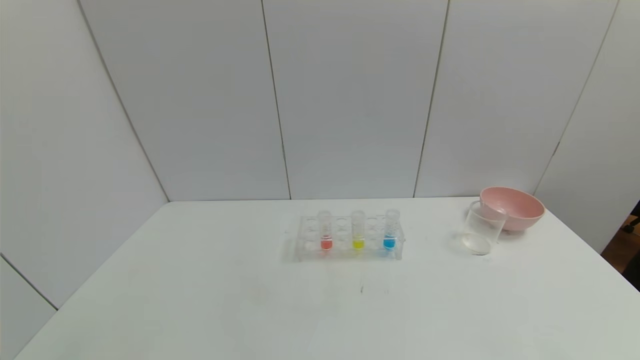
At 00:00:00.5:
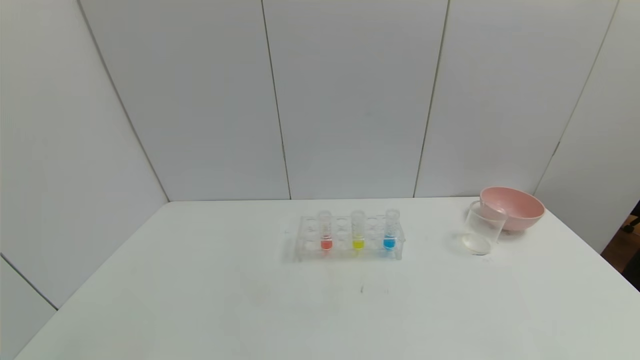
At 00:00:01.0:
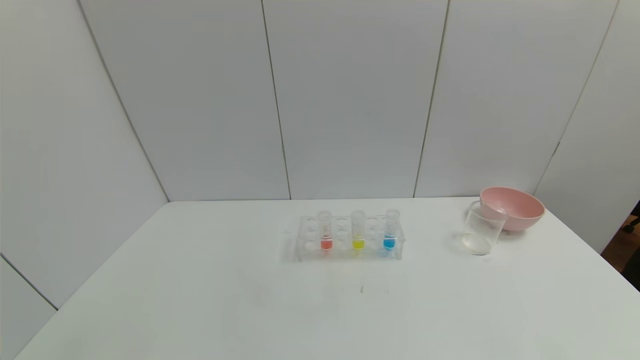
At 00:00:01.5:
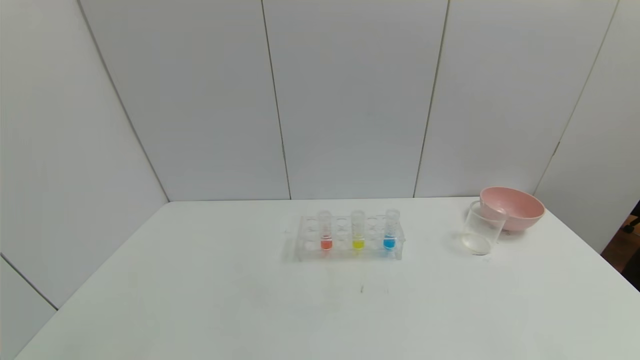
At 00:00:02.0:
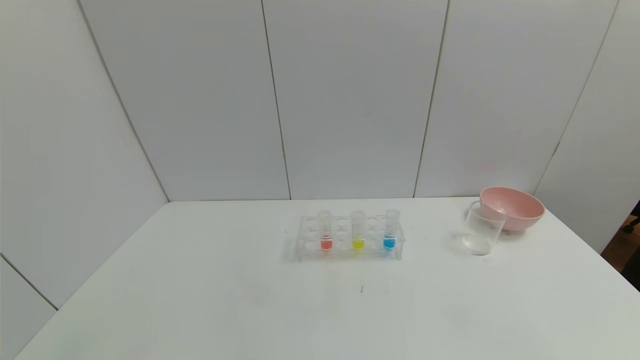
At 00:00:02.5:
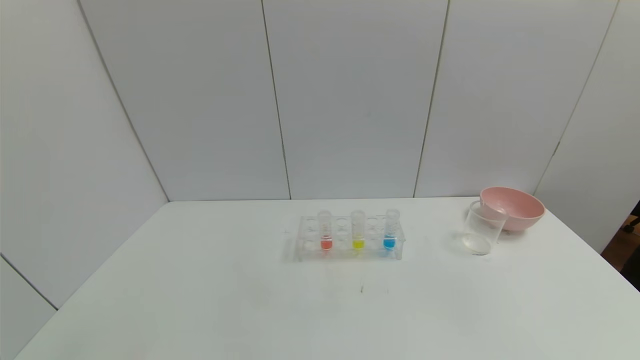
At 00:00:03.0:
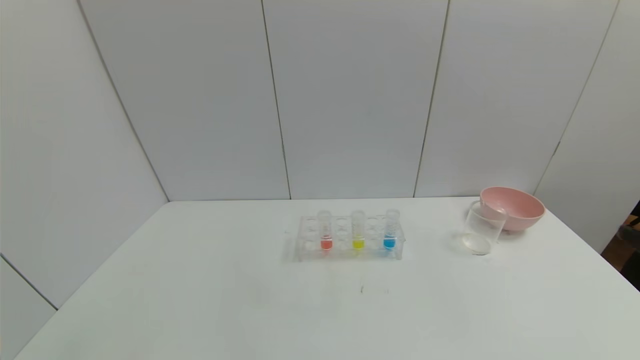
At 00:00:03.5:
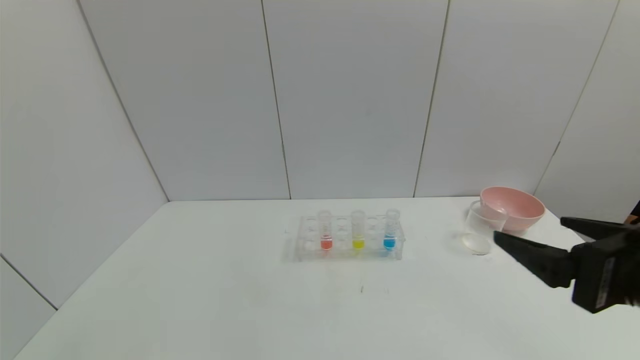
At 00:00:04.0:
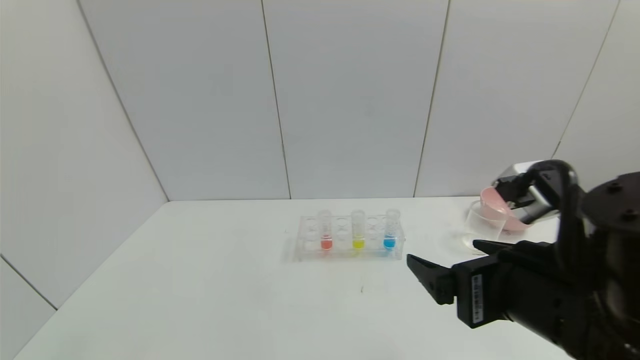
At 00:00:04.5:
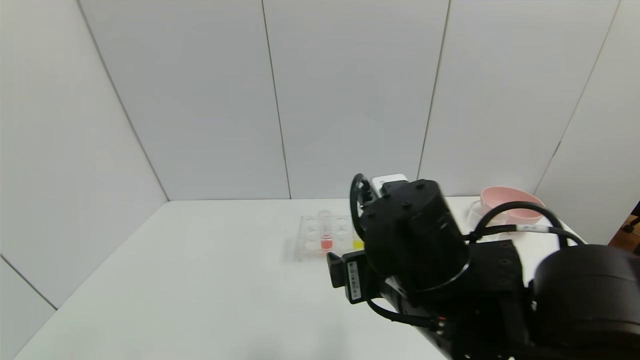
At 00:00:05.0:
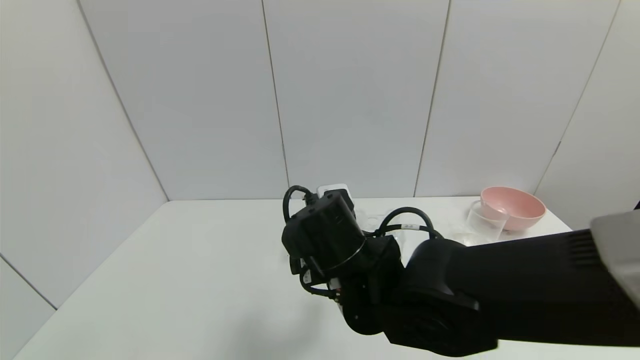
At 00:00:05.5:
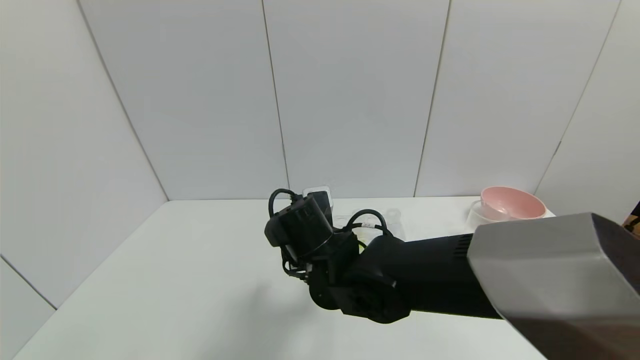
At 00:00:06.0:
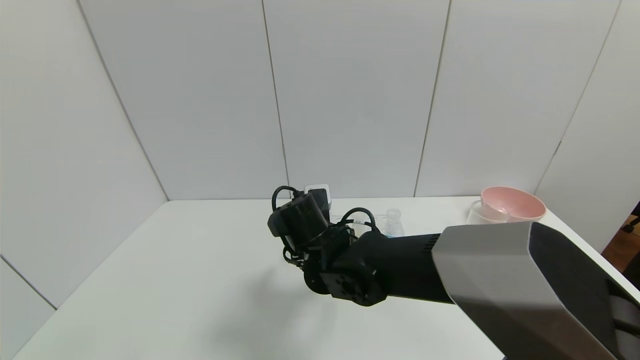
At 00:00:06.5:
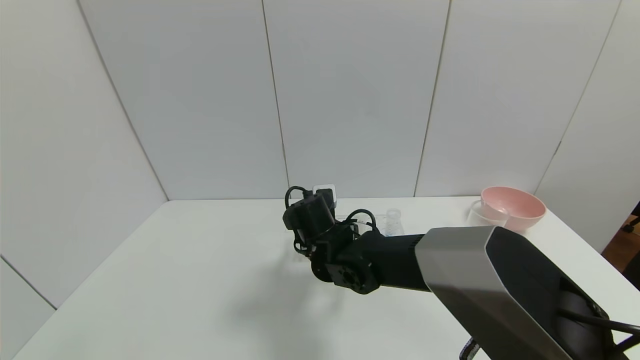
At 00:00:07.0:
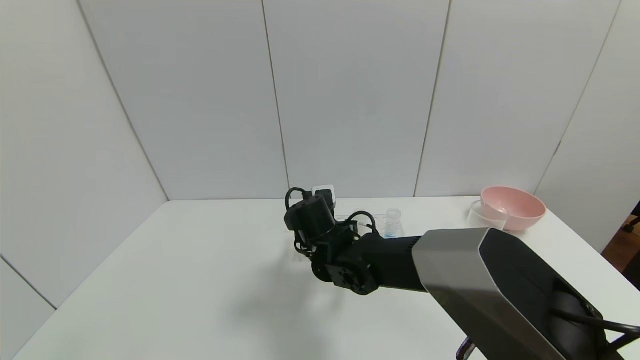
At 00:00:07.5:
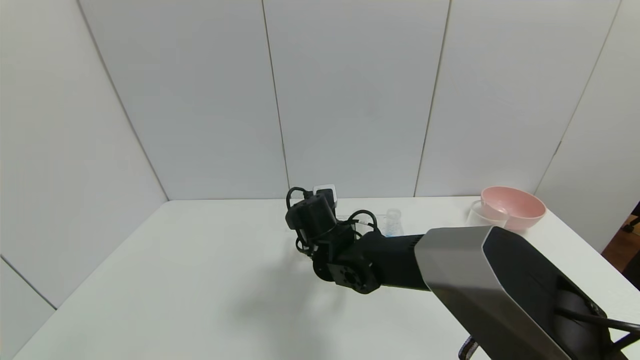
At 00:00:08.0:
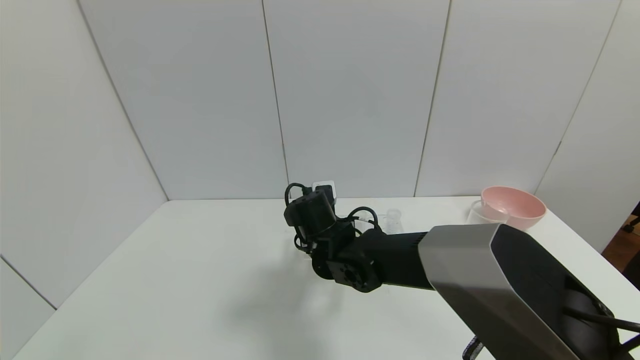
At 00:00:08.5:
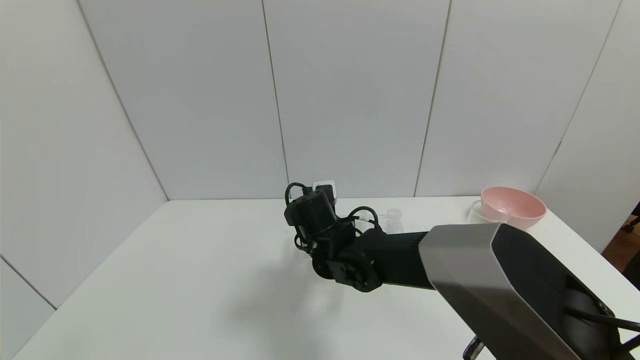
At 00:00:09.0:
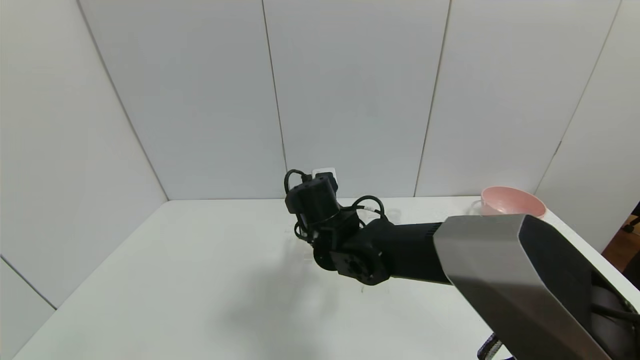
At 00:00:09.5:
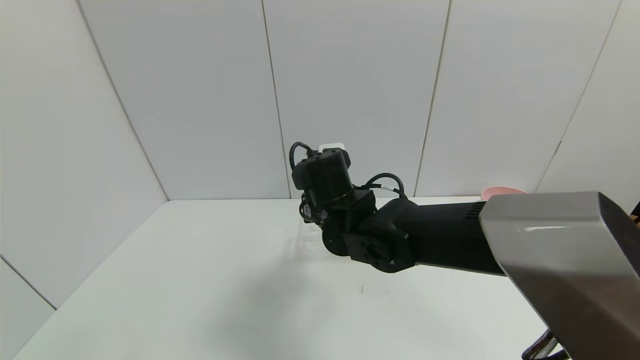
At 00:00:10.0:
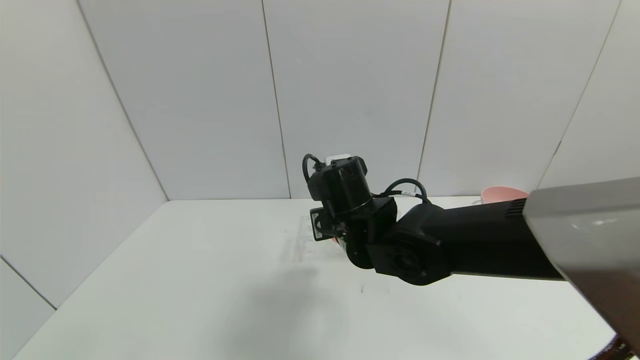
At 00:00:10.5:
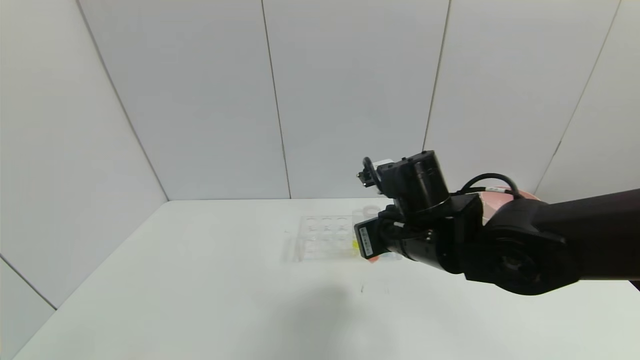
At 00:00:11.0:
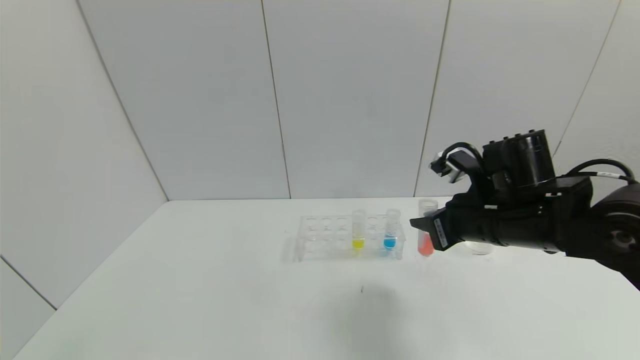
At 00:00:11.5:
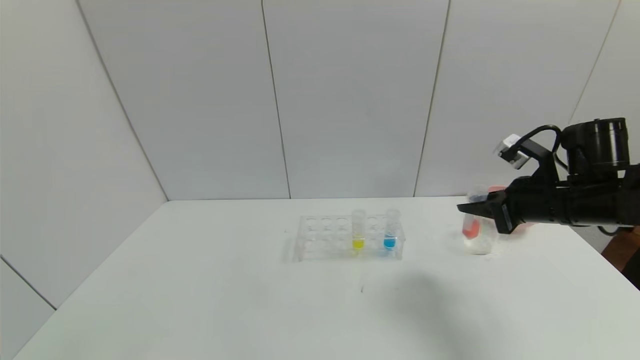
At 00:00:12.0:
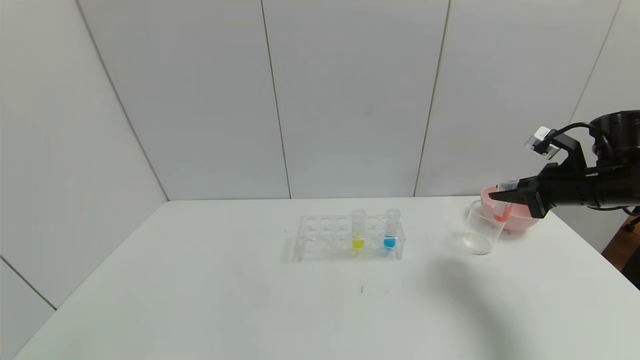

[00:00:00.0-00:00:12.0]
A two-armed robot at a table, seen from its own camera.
Task of the whole recording: pick up the test tube with yellow pigment and the test tube with red pigment by grippers and pour them into the beaker.
Step, 00:00:00.0 to 00:00:07.5: Grasp the red reagent with the right gripper.
00:00:02.0 to 00:00:04.0: The right gripper heads to the left, forward and upward, covering about 30 cm.
00:00:04.0 to 00:00:06.0: The right gripper shifts approximately 30 cm to the left, forward and downward.
00:00:06.0 to 00:00:08.0: The right gripper closes up.
00:00:08.0 to 00:00:10.0: The right gripper goes about 5 cm upward.
00:00:10.0 to 00:00:12.0: The right gripper goes approximately 35 cm to the right.

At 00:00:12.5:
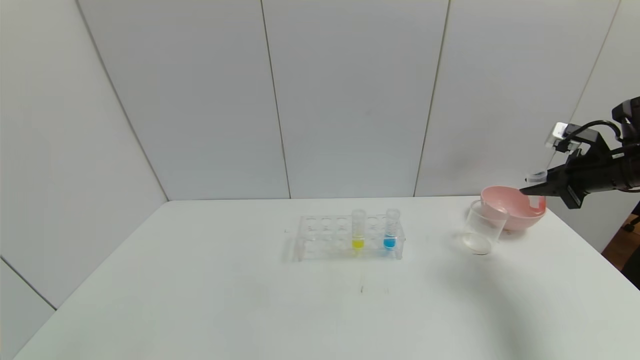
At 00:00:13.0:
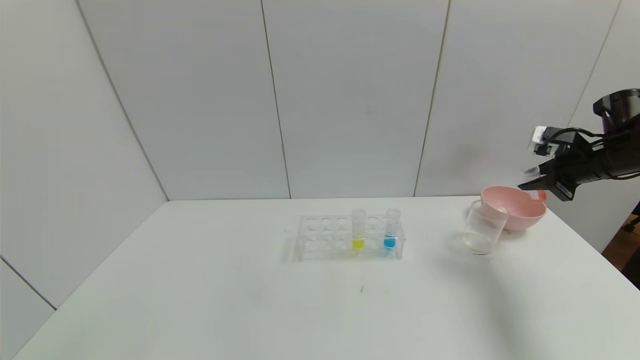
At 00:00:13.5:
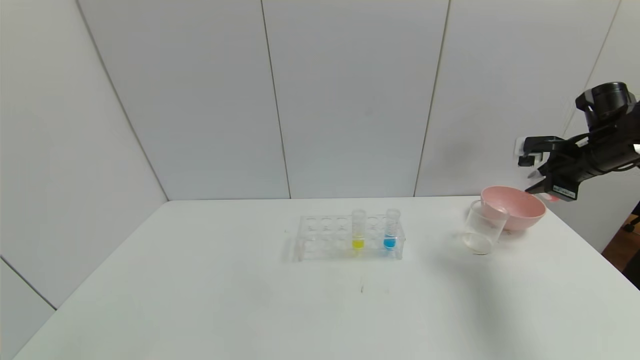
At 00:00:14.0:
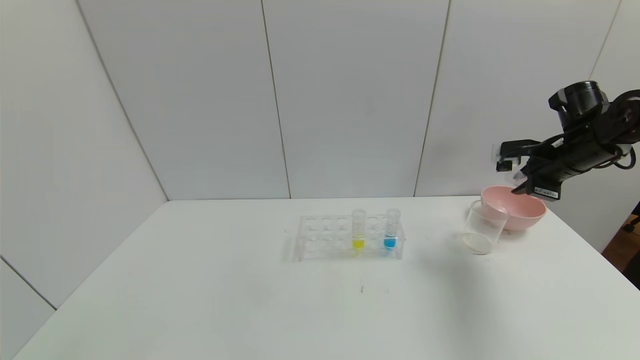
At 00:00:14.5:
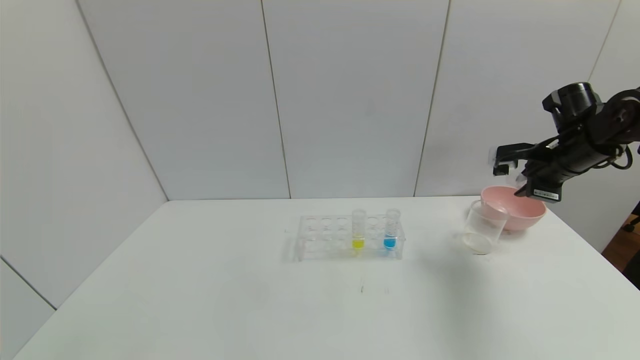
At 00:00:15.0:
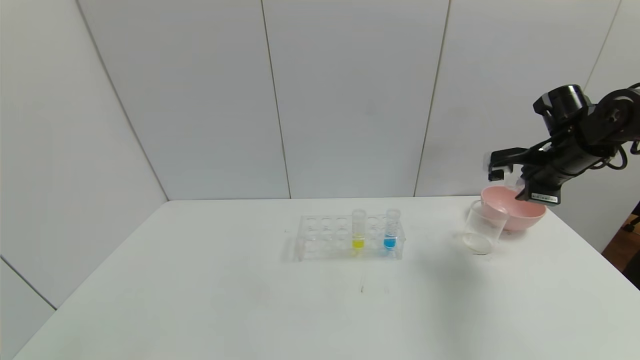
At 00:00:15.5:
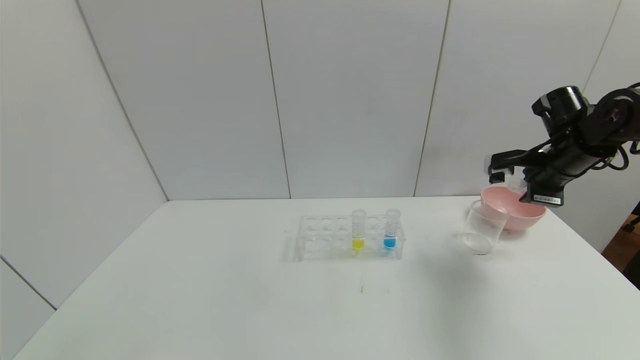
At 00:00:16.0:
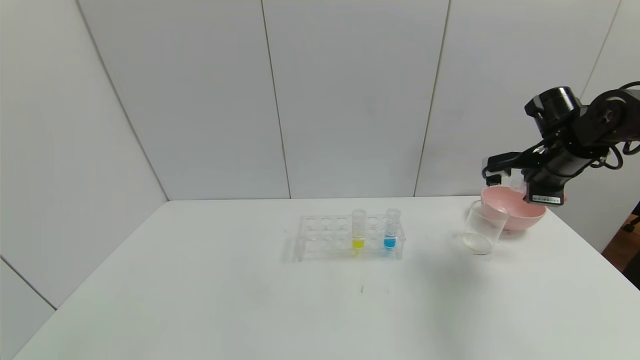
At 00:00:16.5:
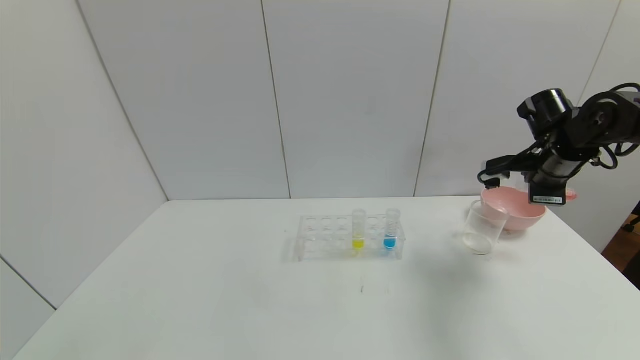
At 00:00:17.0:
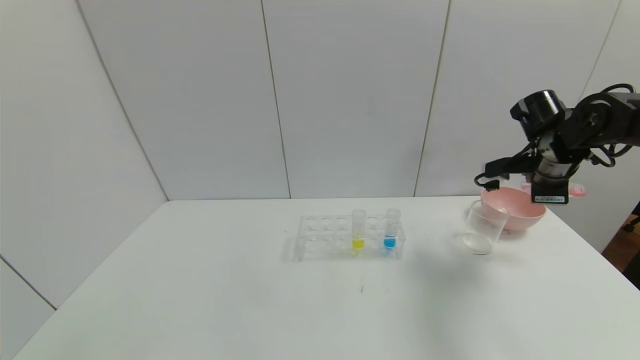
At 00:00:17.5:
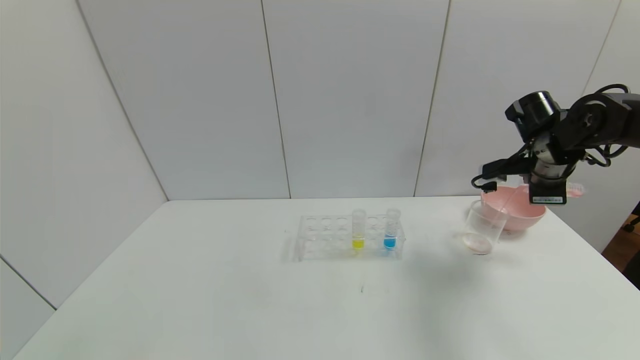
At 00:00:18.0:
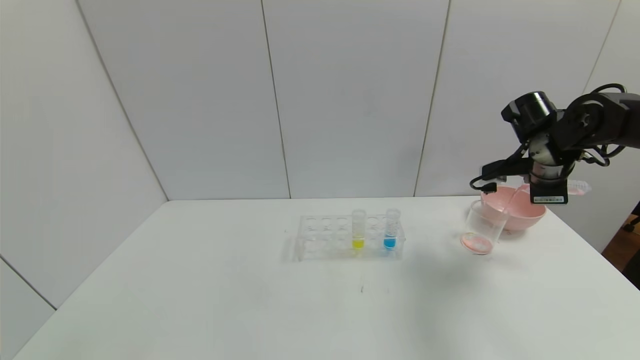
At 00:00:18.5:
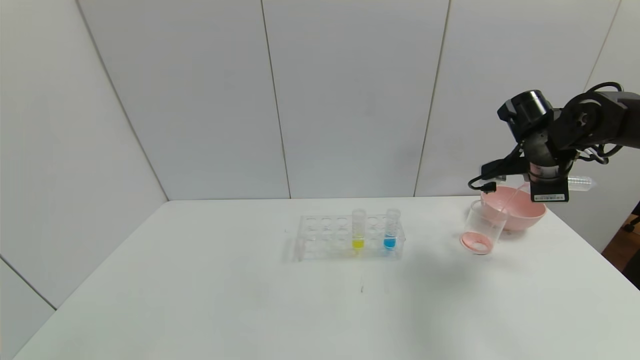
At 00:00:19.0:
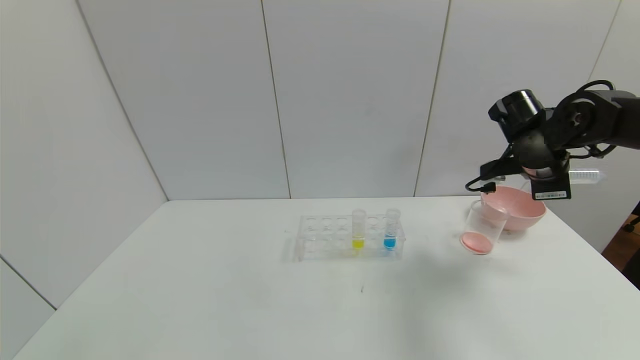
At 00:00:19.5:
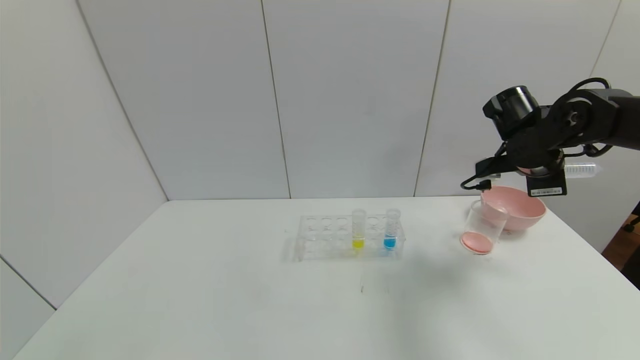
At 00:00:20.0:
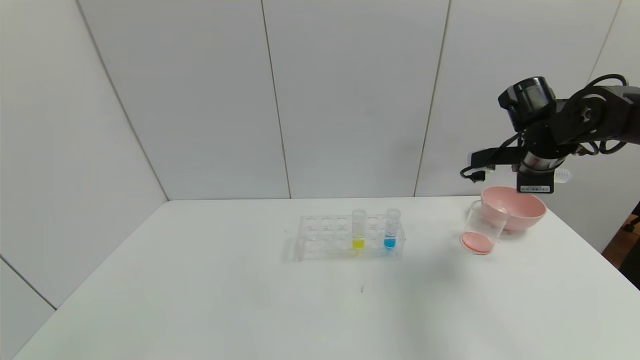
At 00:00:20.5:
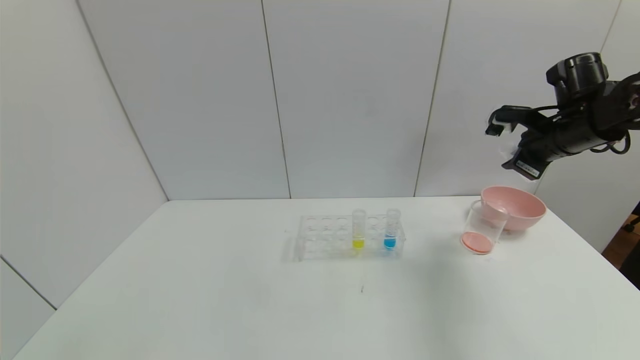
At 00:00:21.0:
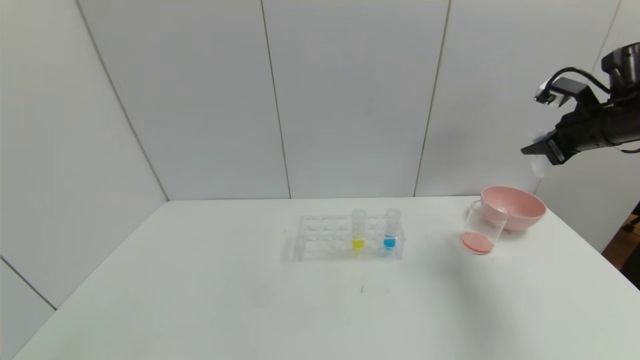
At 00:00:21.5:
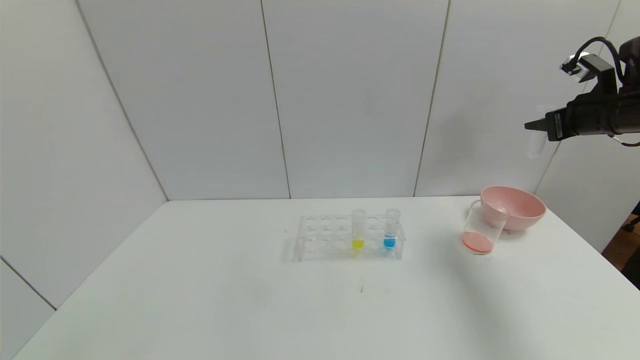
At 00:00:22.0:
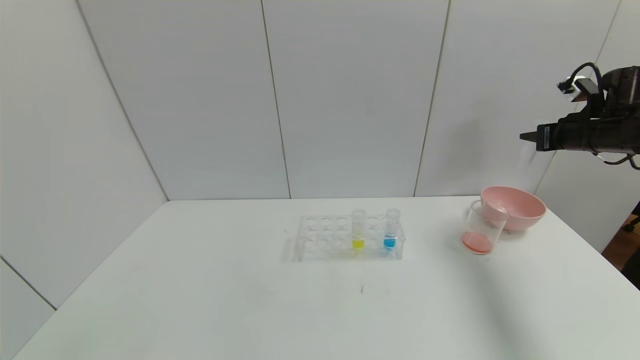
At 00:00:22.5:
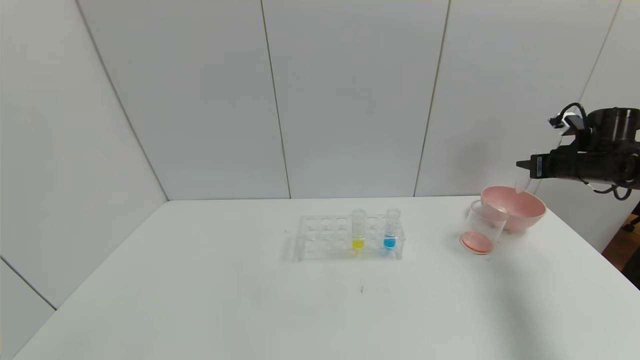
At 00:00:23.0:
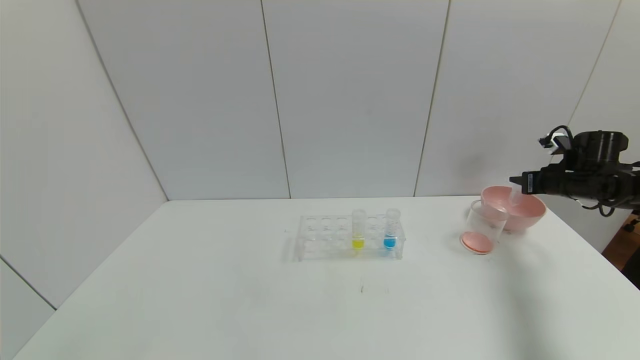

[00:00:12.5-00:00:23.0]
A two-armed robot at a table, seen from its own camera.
Task of the whole recording: pick up the test tube with yellow pigment and the test tube with red pigment by grippers and pour them into the beaker.
Step, 00:00:12.5 to 00:00:19.0: Pour the red reagent into the graduated cylinder with the right gripper.
00:00:12.5 to 00:00:14.5: The right gripper shifts some 5 cm to the left.
00:00:14.5 to 00:00:16.5: The grippers move only a little.
00:00:19.0 to 00:00:21.0: The right gripper travels to the right and upward by some 10 cm.
00:00:21.0 to 00:00:23.0: The right gripper heads downward, to the right and forward, covering some 15 cm.
